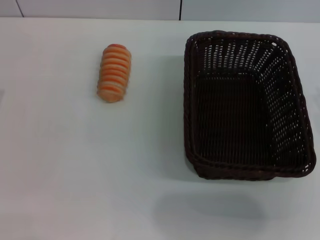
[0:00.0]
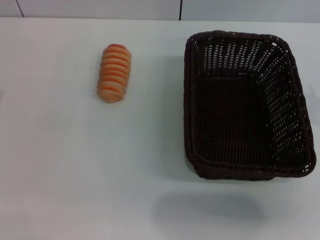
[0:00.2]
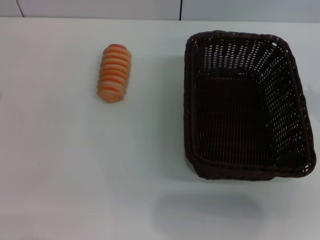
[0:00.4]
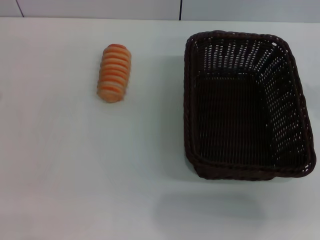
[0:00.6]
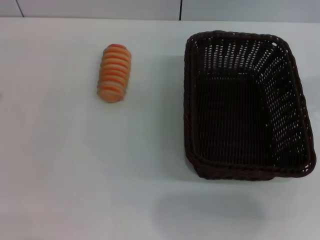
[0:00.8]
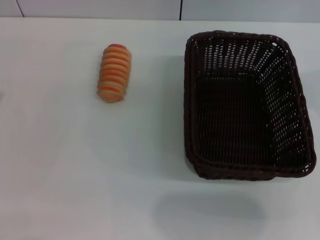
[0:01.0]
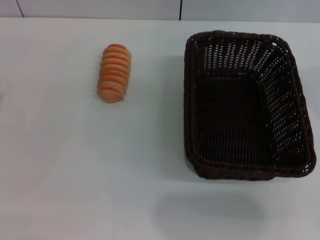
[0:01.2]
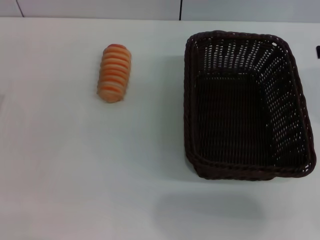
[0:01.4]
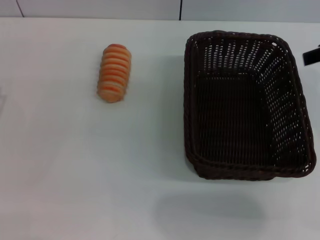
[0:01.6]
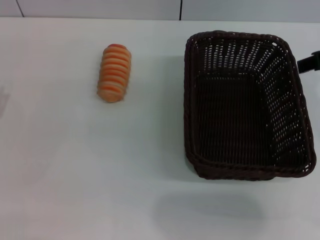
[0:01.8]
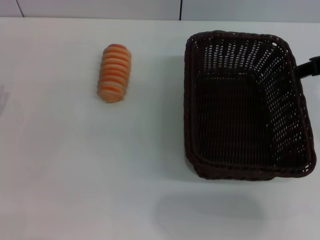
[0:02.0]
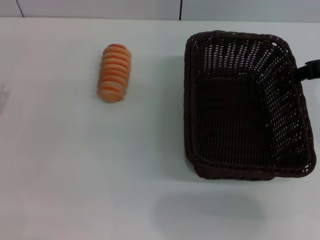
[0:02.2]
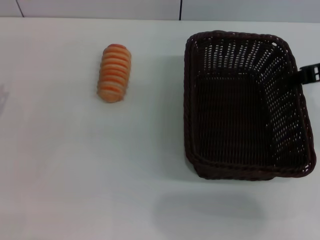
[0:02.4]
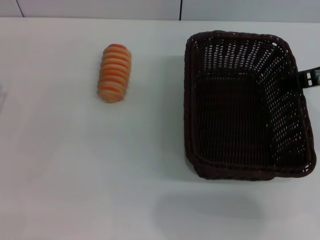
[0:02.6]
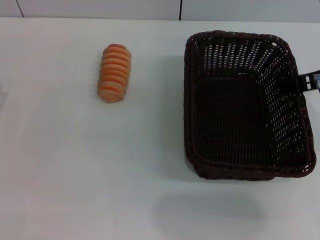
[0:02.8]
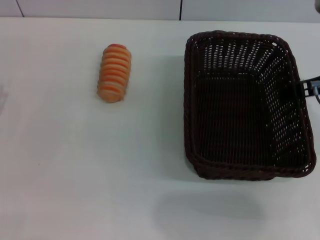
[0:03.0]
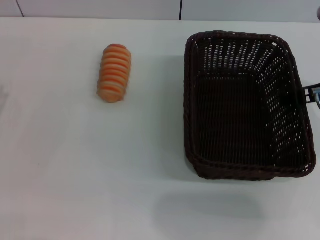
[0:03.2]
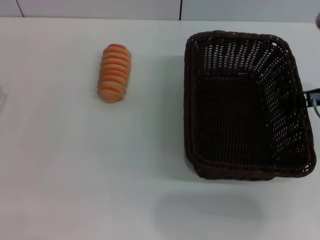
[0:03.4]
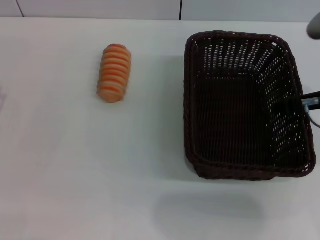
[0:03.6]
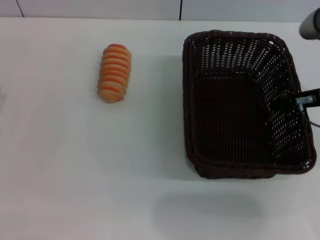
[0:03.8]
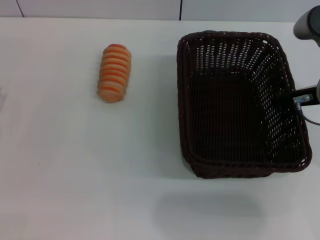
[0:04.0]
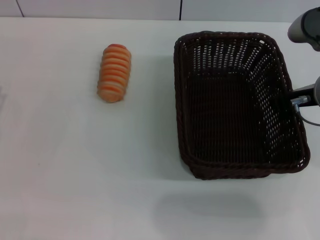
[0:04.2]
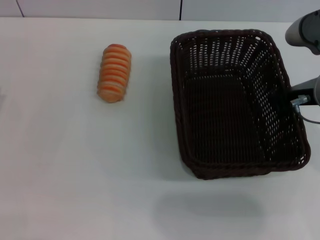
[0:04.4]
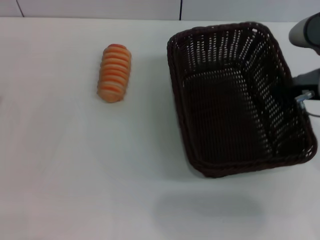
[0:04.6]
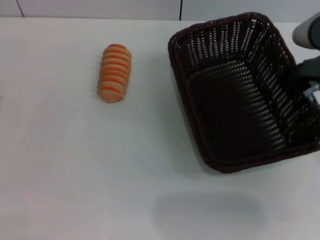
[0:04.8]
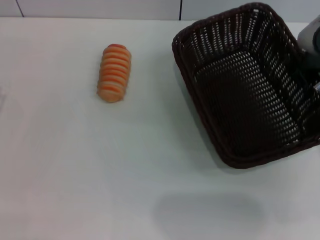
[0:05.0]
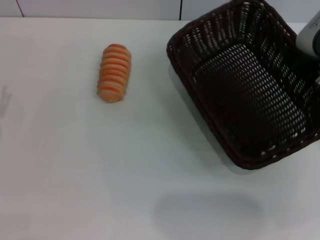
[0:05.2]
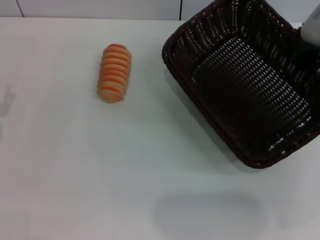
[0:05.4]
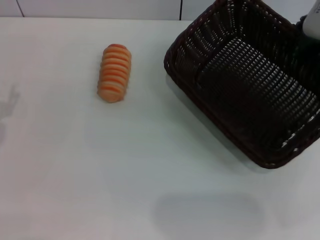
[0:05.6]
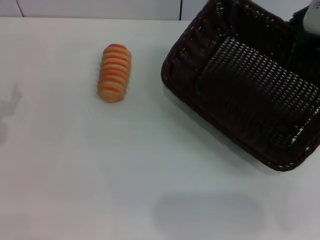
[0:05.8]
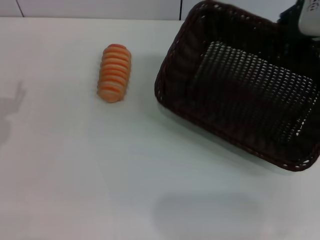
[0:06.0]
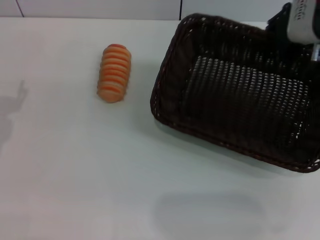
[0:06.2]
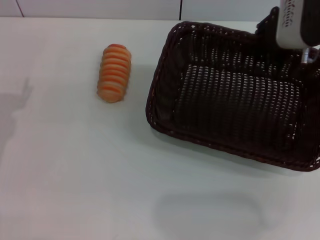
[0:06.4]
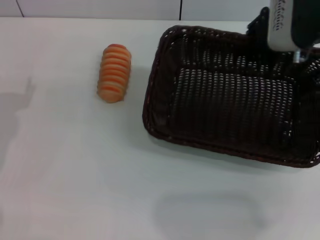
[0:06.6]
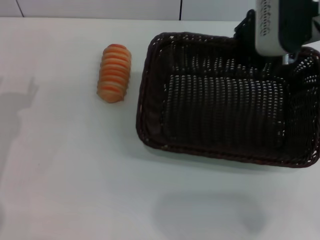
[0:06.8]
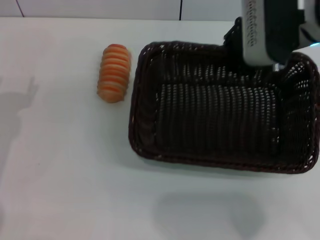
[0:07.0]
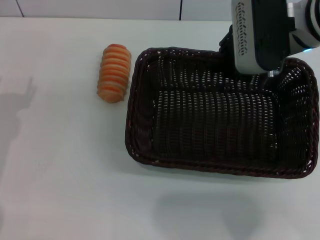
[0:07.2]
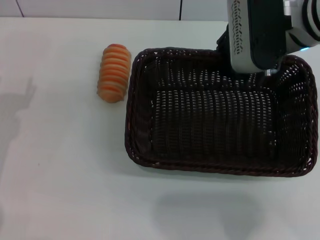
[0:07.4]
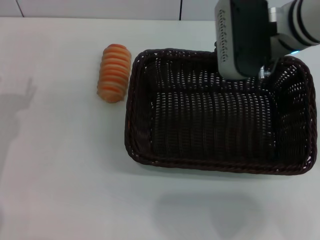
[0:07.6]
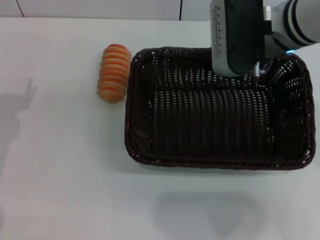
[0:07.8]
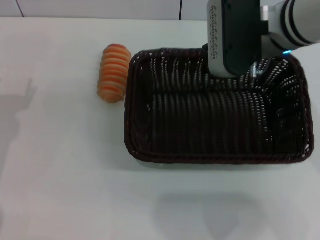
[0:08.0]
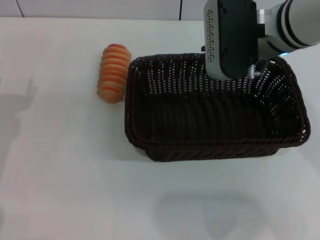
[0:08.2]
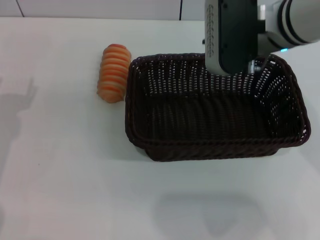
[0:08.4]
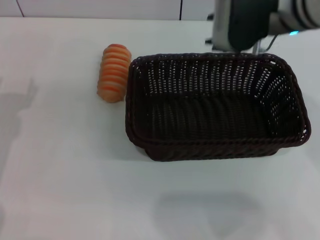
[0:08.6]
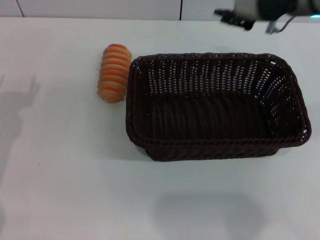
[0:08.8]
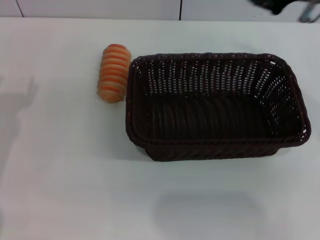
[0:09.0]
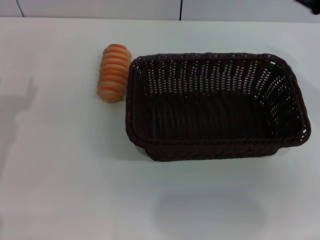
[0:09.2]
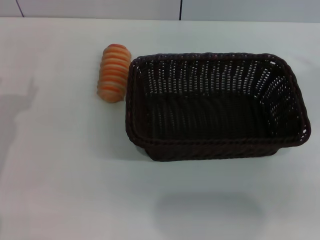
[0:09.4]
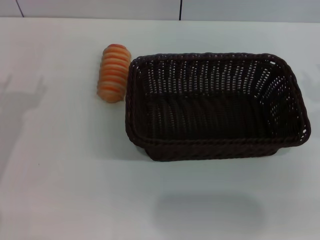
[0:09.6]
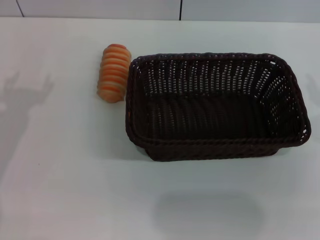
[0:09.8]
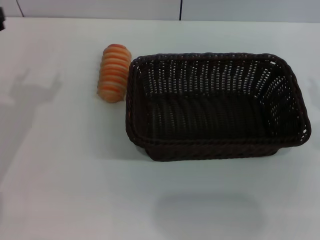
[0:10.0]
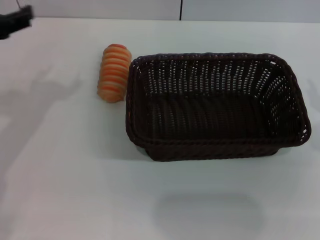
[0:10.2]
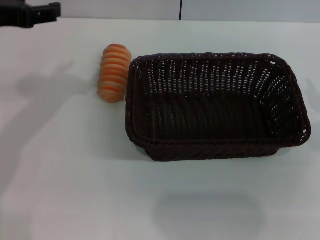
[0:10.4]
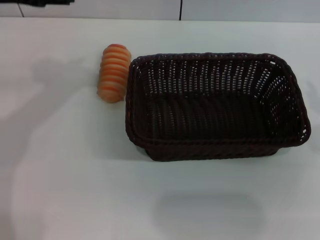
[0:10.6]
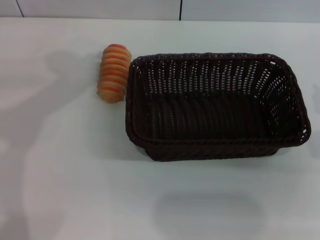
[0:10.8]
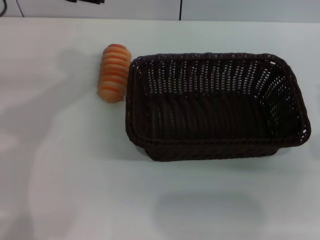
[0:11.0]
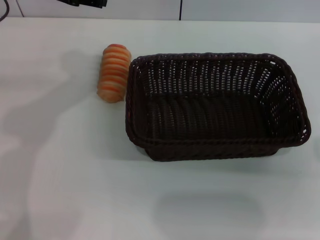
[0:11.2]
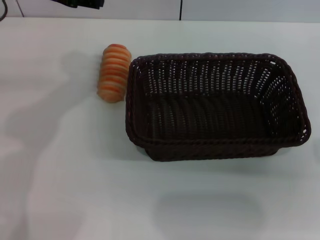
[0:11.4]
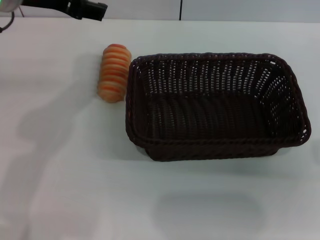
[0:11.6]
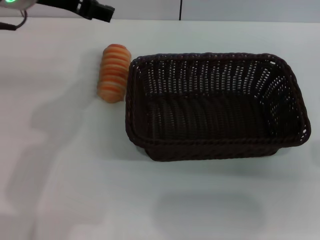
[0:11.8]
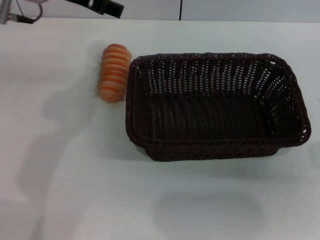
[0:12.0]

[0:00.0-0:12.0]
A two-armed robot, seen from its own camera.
Step, 0:00.0 to 0:05.8: Pick up the dark basket with the right gripper.
Step, 0:06.0 to 0:08.6: Place the dark basket in the center of view with the right gripper.
0:01.6 to 0:03.0: The right gripper shifts some 5 cm downward.
0:03.0 to 0:04.4: The right gripper closes its fingers.
0:04.4 to 0:06.0: The right gripper goes some 10 cm upward and forward.
0:06.0 to 0:07.6: The right gripper heads to the left, covering about 10 cm.
0:07.6 to 0:09.0: The right gripper is displaced to the right and upward by about 10 cm, and opens up.
0:09.0 to 0:10.4: The right gripper moves to the right, backward and downward, some 15 cm. The left gripper is displaced upward and forward by some 10 cm.
0:10.4 to 0:12.0: The left gripper goes approximately 10 cm to the right and forward.

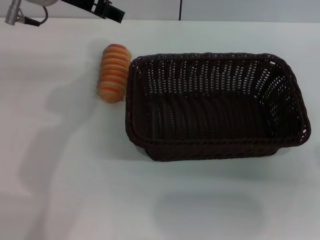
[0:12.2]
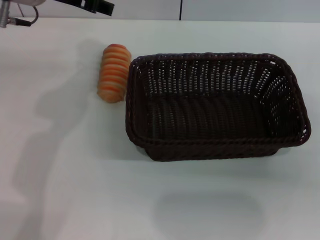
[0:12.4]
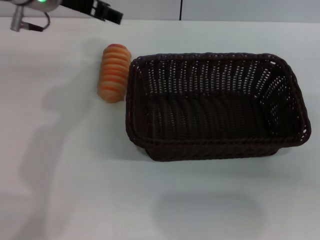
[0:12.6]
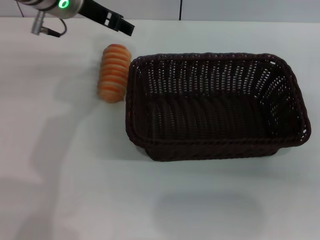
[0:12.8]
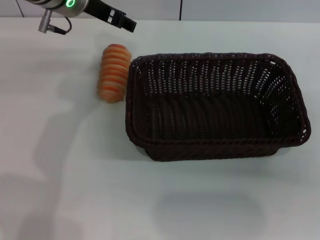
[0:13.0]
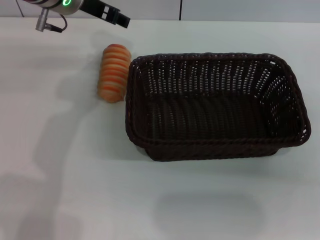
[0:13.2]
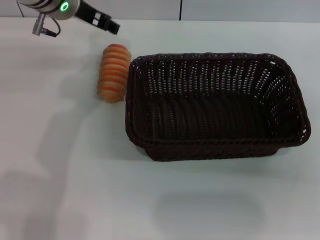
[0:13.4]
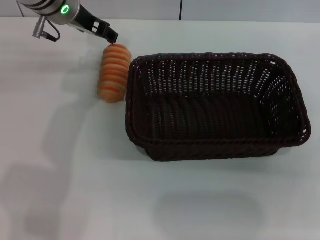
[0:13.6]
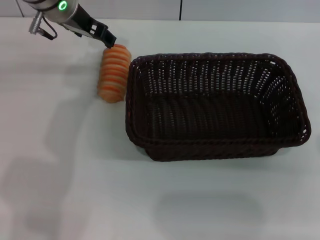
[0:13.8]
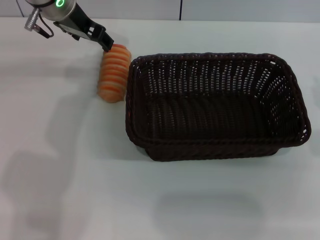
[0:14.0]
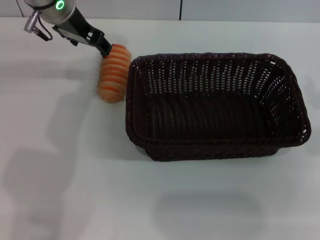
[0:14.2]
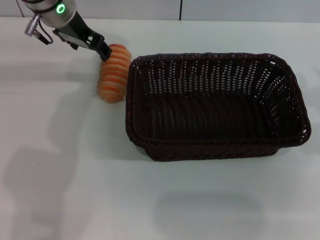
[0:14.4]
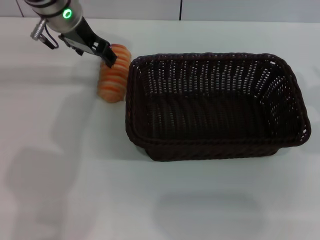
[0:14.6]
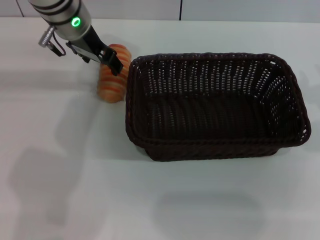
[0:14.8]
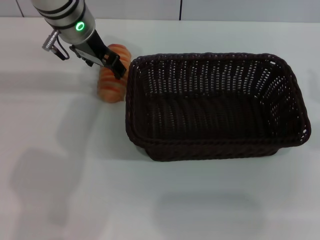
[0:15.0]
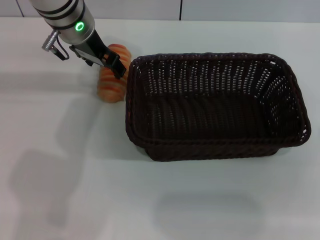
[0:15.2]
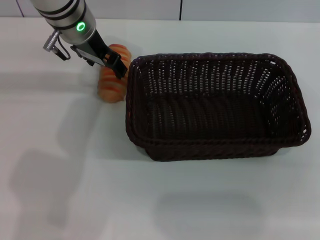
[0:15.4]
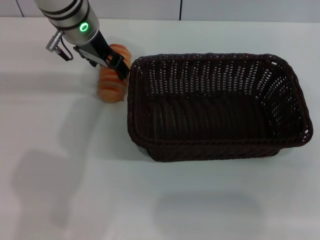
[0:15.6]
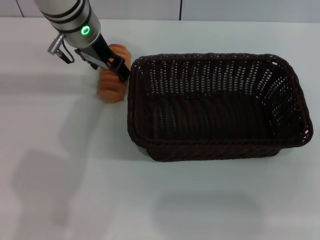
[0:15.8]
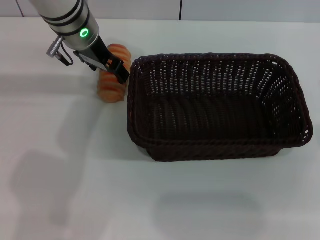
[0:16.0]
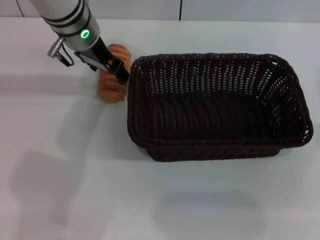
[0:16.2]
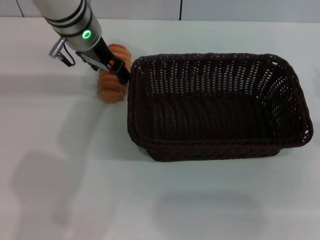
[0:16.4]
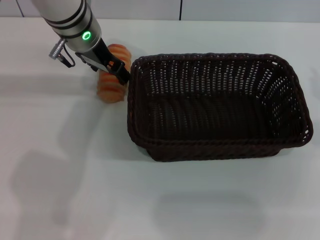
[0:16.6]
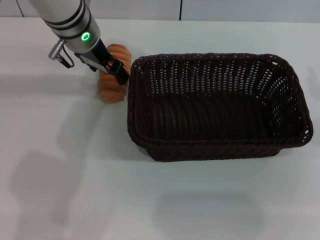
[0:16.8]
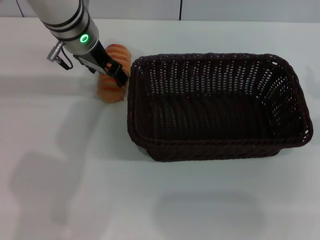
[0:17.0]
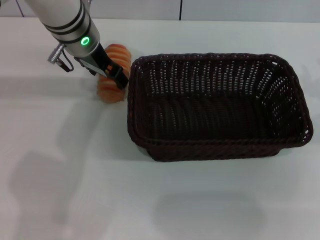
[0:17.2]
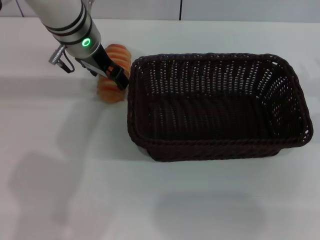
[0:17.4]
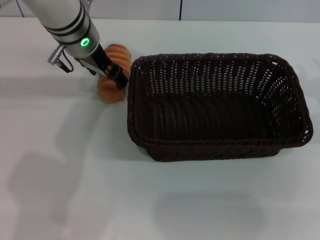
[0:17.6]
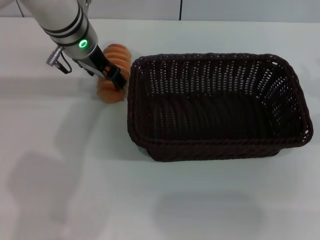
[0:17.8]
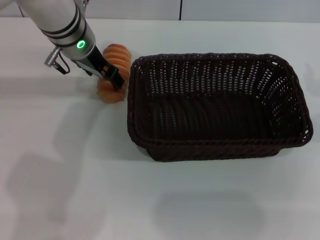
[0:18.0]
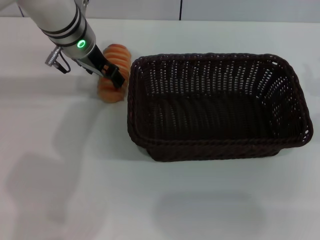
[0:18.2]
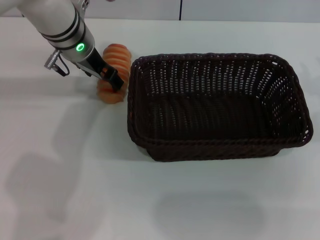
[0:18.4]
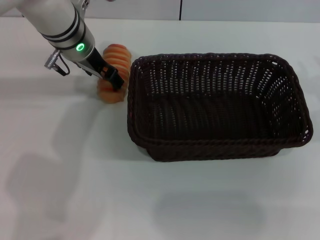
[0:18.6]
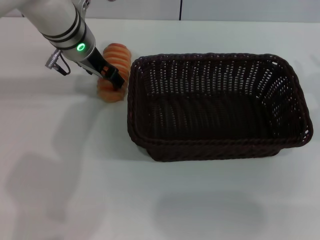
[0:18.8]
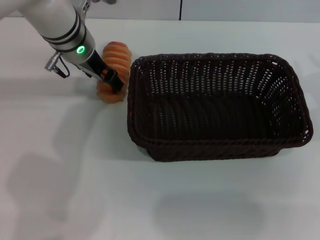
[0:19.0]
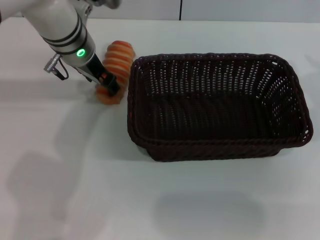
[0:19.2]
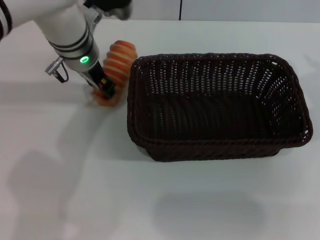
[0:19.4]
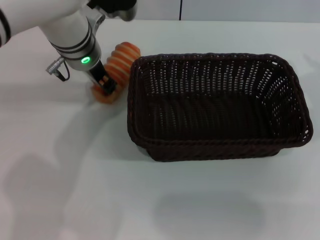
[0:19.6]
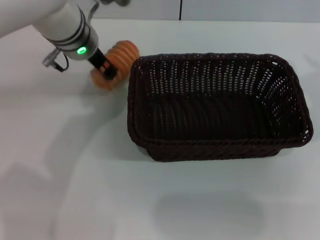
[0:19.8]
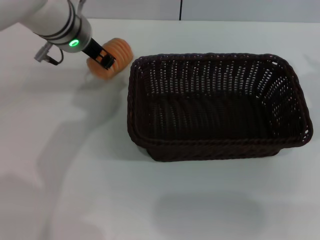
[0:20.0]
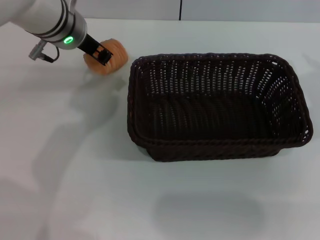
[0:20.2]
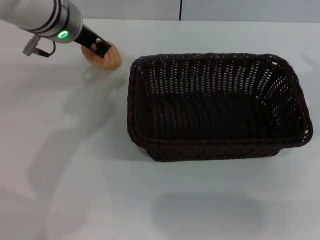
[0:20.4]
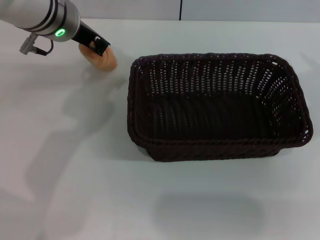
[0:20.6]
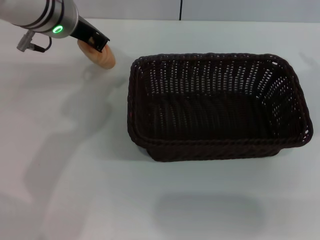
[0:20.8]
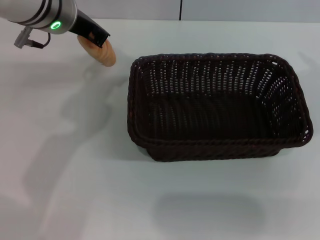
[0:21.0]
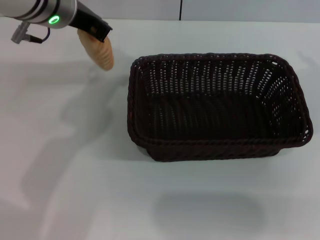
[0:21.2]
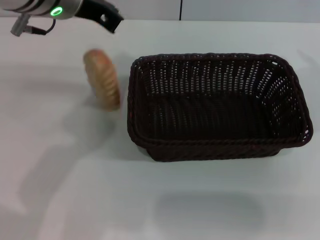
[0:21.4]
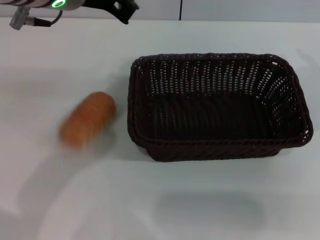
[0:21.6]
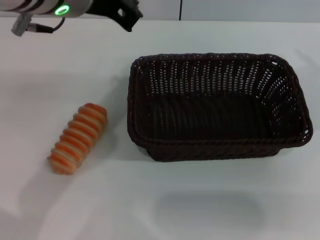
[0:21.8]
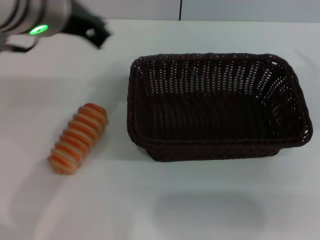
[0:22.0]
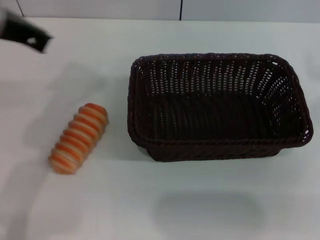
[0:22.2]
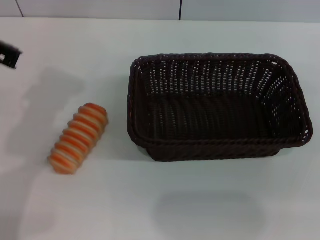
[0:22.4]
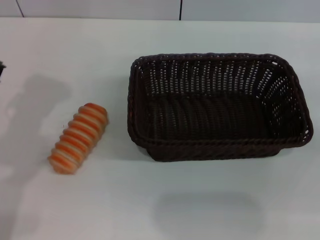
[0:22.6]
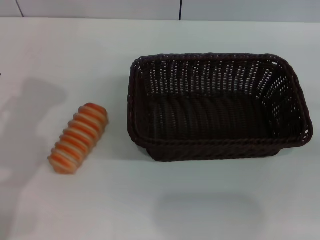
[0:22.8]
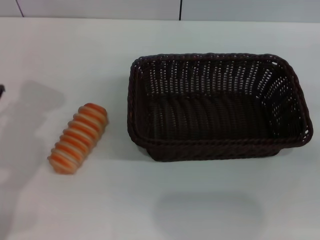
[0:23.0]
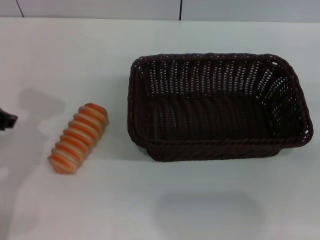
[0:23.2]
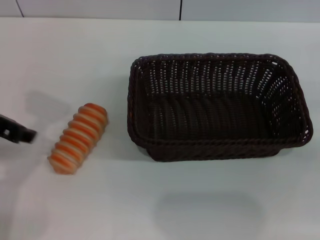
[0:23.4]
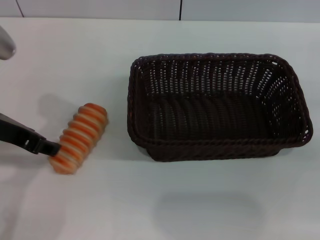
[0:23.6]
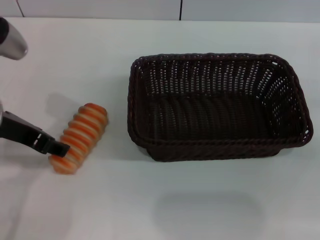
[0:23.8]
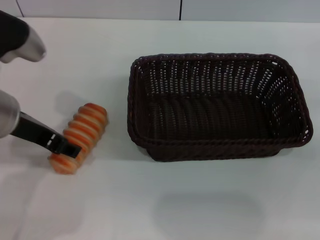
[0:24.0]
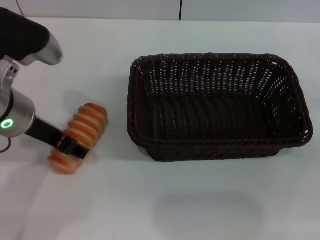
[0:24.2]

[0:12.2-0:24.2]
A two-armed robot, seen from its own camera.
0:12.2 to 0:13.8: The left gripper travels forward and downward by approximately 10 cm.
0:13.8 to 0:18.2: The grippers make only small movements.
0:18.2 to 0:19.8: The left gripper closes its fingers.
0:19.8 to 0:21.2: The left gripper shifts approximately 5 cm upward.
0:21.2 to 0:22.6: The right gripper goes some 15 cm to the right; the left gripper goes some 15 cm to the left and backward.
0:22.6 to 0:24.2: The left gripper travels downward and to the right by approximately 10 cm, and opens its fingers.
